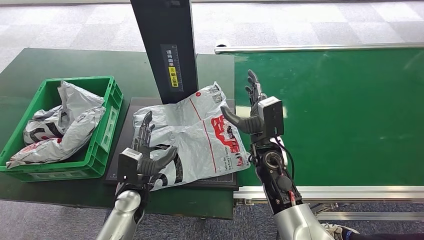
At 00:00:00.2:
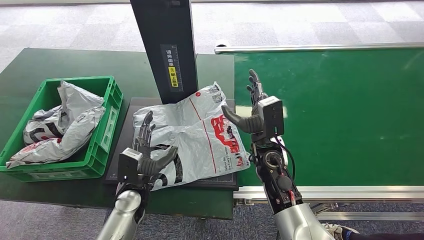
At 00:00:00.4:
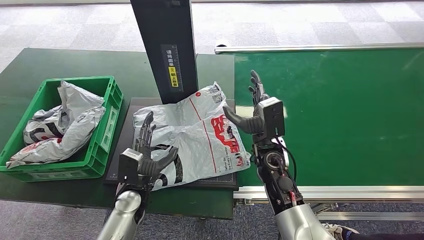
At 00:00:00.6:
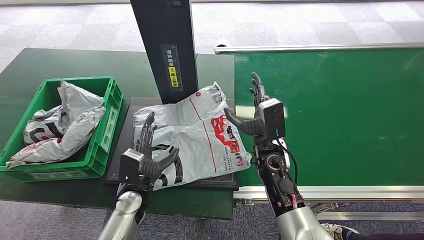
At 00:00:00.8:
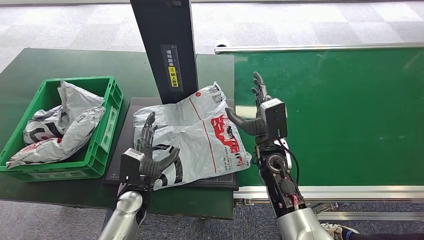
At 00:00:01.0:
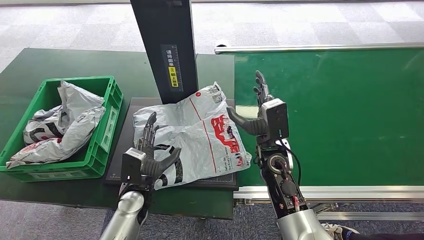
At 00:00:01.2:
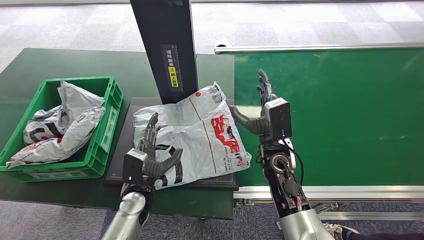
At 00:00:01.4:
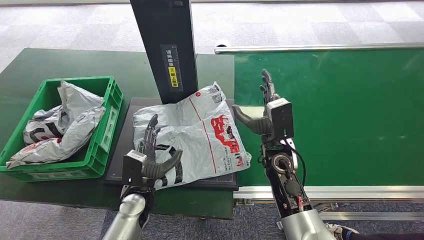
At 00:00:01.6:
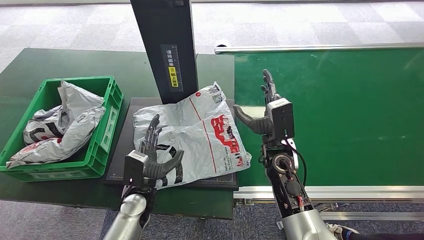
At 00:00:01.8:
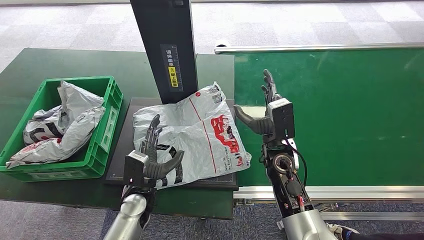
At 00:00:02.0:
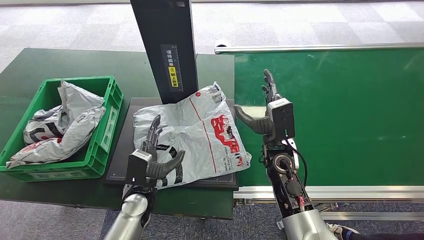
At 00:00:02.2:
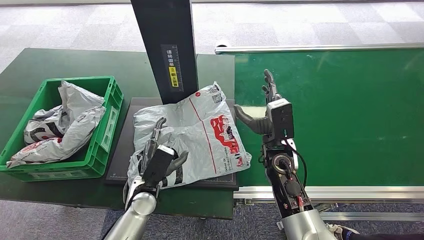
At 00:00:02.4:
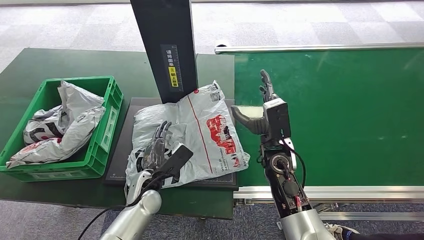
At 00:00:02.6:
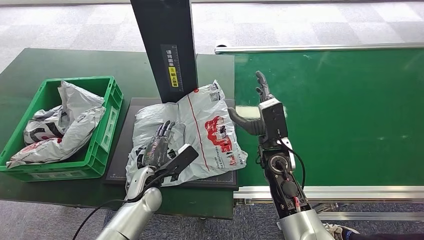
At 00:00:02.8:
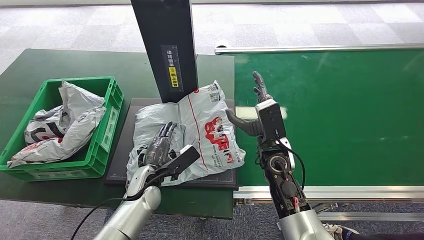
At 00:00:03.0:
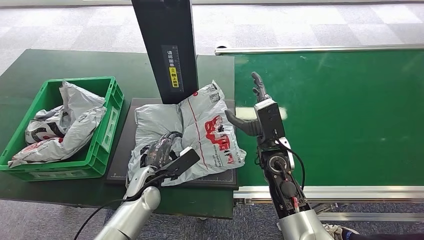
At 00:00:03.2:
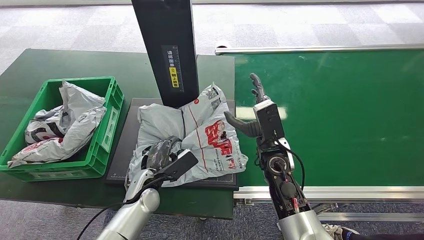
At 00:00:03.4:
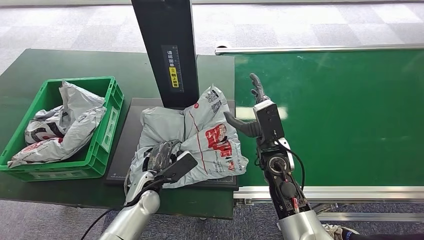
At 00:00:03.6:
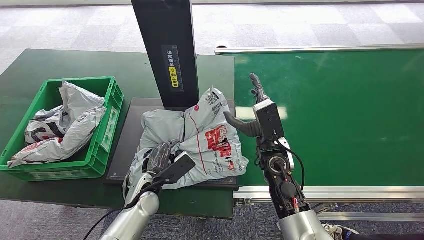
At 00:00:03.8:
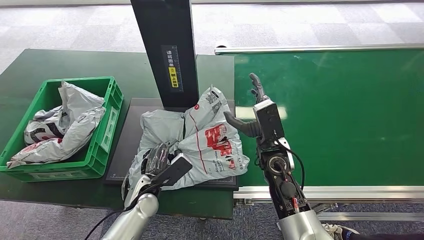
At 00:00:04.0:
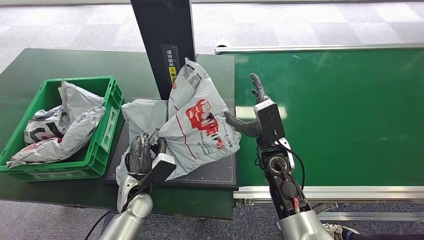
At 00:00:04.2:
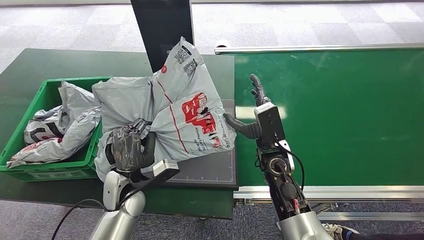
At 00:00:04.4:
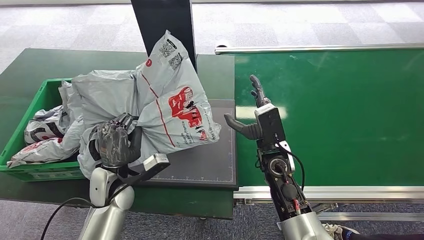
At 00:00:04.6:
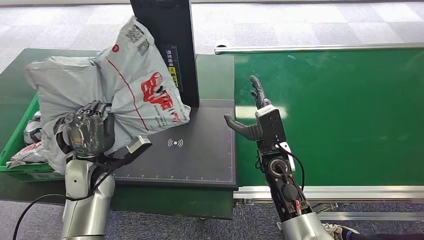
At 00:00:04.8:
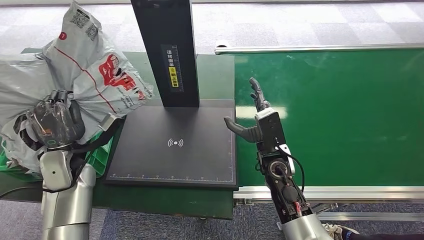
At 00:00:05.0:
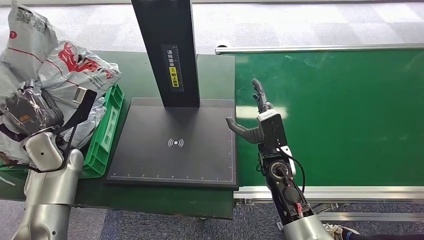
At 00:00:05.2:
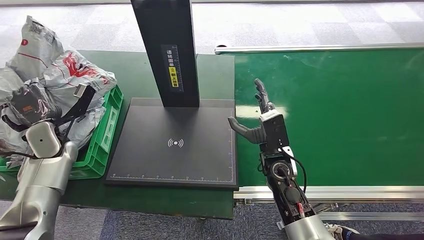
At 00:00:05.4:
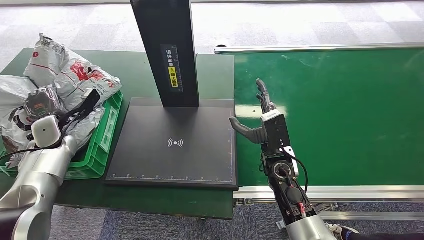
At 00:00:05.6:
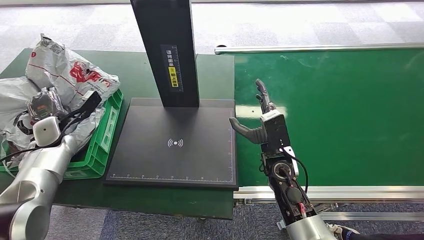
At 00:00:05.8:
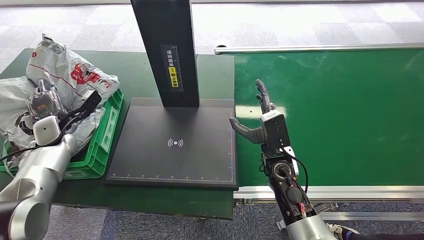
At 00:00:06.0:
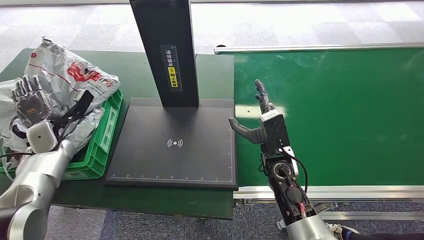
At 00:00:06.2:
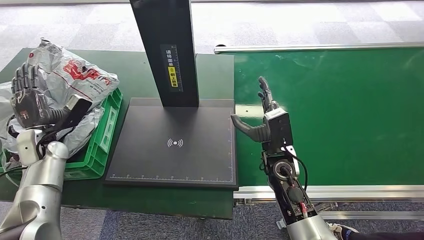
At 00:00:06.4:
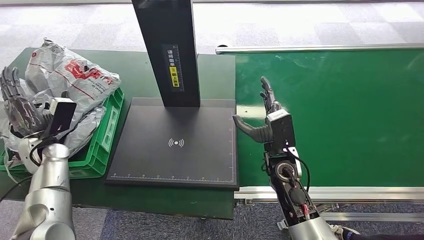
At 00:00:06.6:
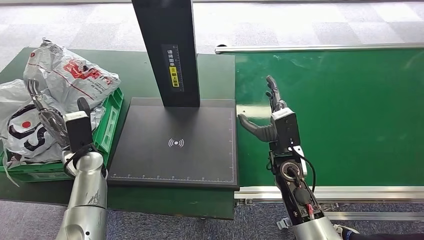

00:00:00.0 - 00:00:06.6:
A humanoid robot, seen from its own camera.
Step, 00:00:00.0 - 00:00:04.6: Pick up the package from the inbound machine.
Step, 00:00:04.8 - 00:00:06.6: Place the package into the parcel locker.
00:00:00.0 - 00:00:01.6: The hands make only small movements.
